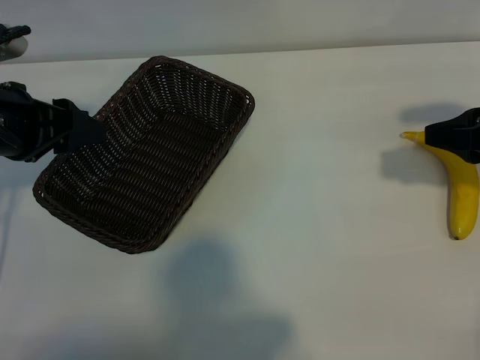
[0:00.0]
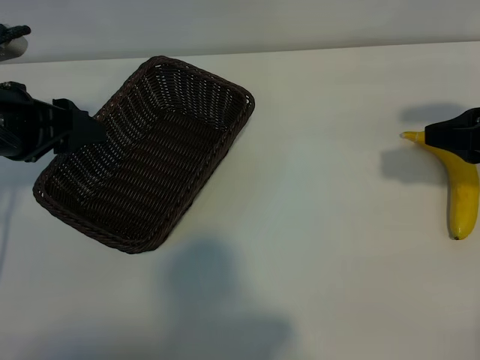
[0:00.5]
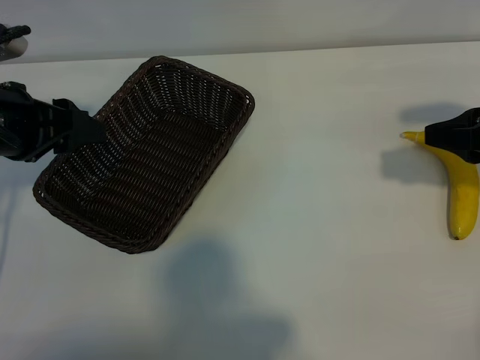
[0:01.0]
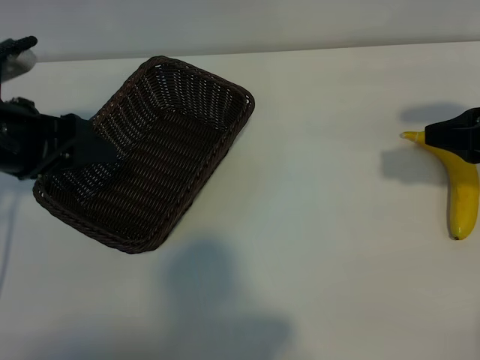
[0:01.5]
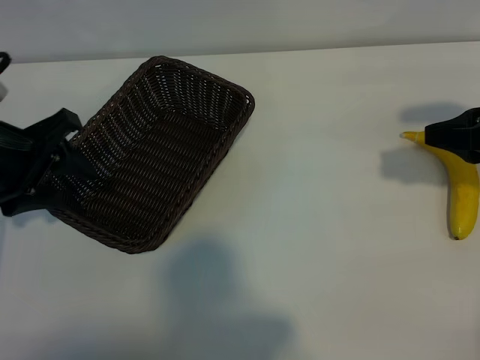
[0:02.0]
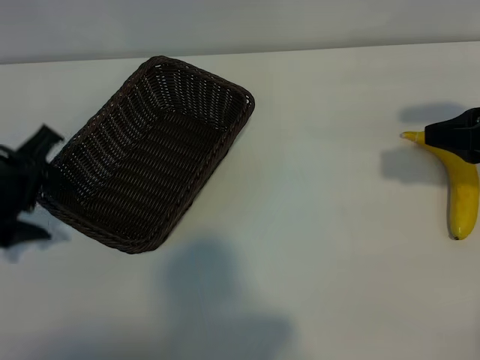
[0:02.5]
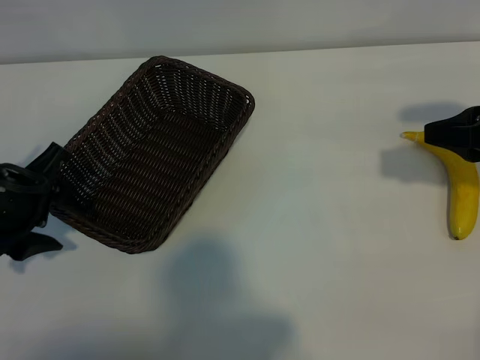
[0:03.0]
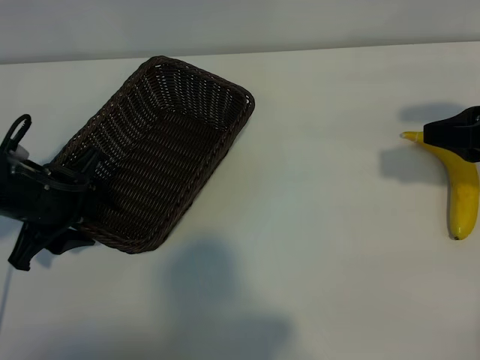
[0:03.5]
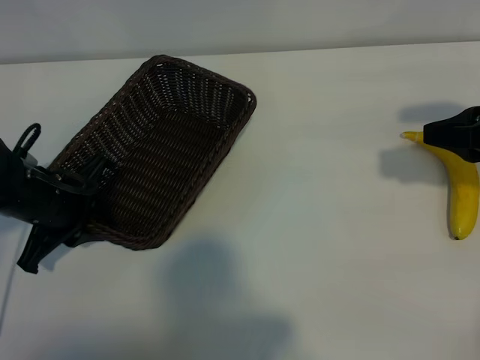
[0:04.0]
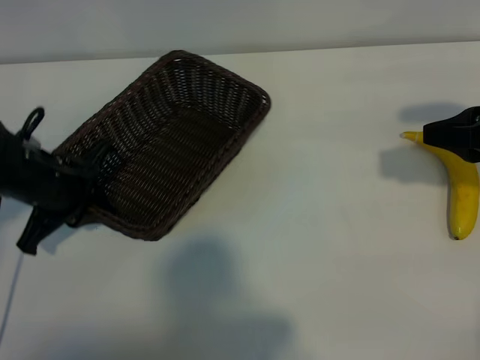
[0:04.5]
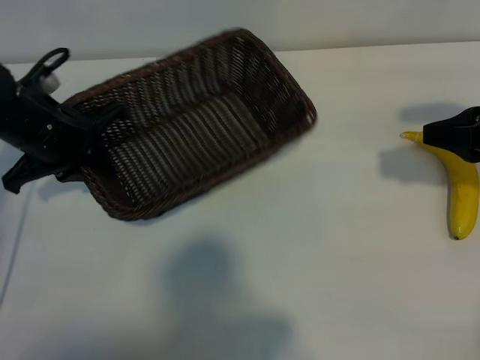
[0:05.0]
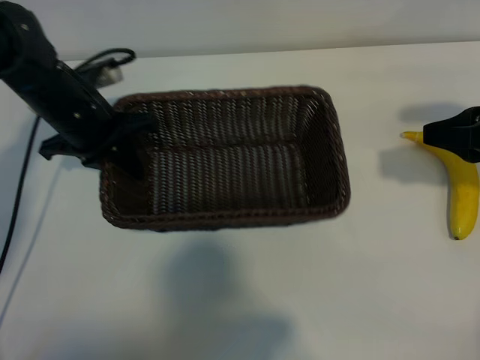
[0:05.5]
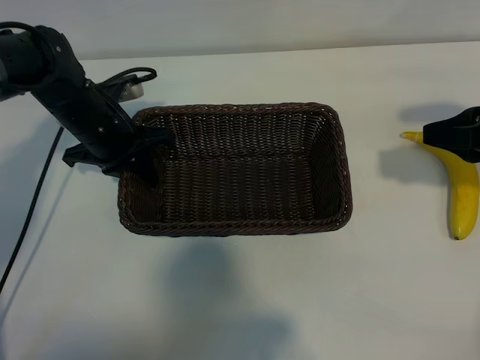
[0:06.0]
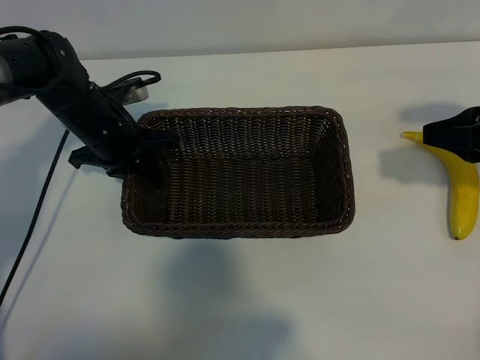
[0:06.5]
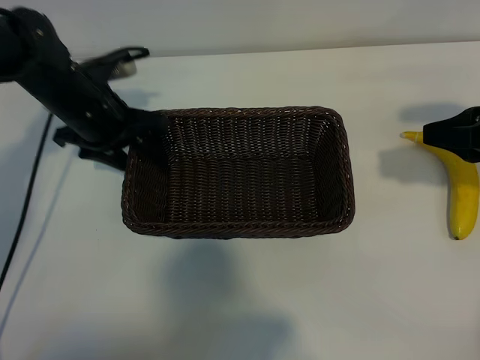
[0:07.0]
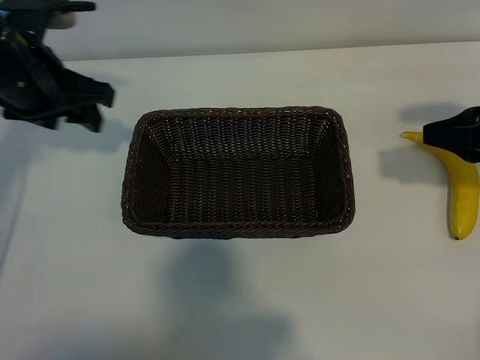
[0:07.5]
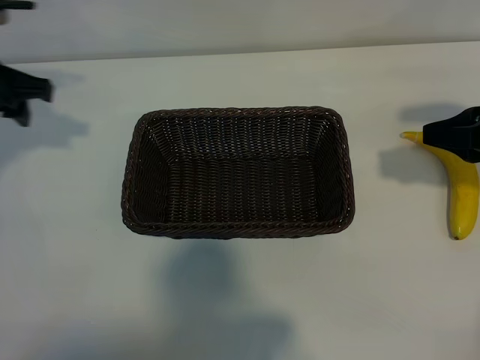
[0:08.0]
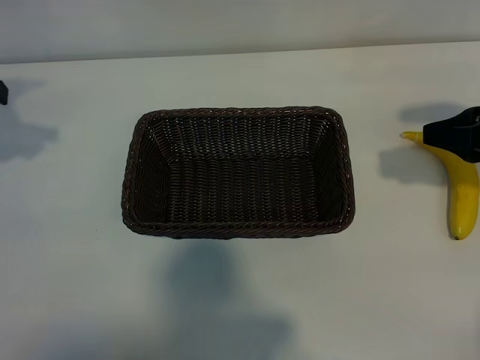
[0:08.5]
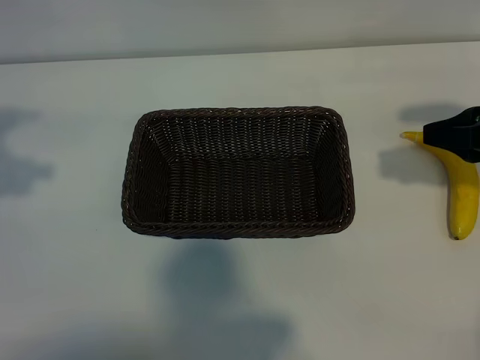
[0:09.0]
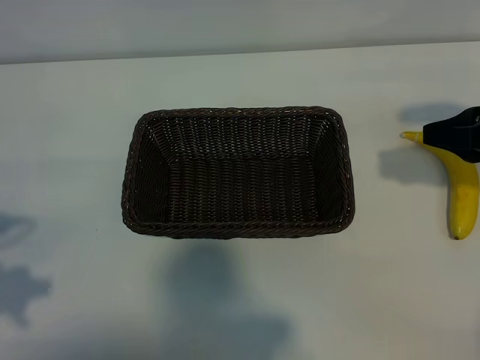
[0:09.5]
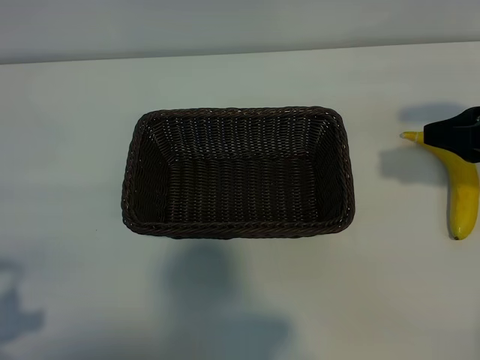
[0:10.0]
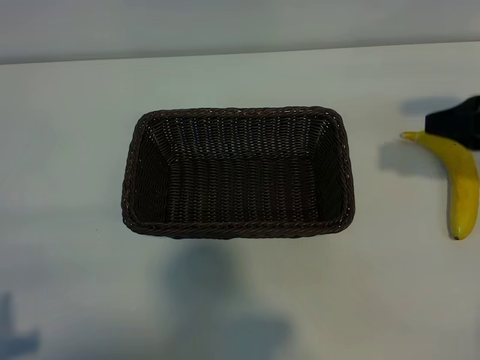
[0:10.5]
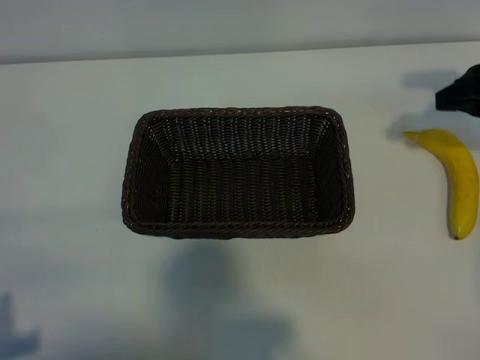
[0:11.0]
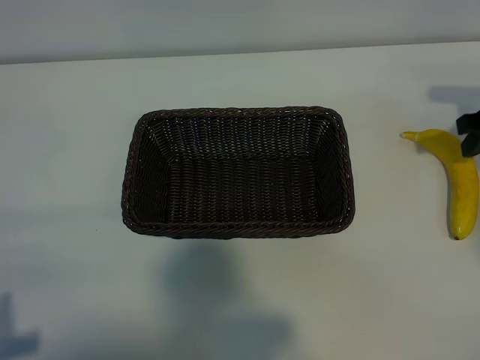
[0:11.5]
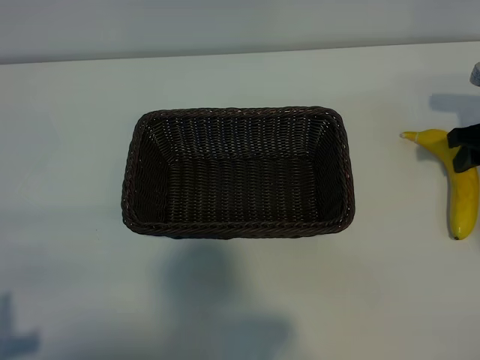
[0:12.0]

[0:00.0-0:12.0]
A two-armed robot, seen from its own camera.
Task of the whole recording: pick up the banana and put it into the basket.
Step, 0:01.5 to 0:03.5: Grasp the basket with the left gripper.
Step, 0:04.5 to 0:07.0: Place the basket in the center of the table with the left gripper.

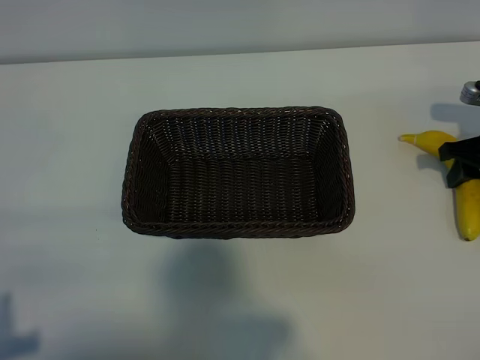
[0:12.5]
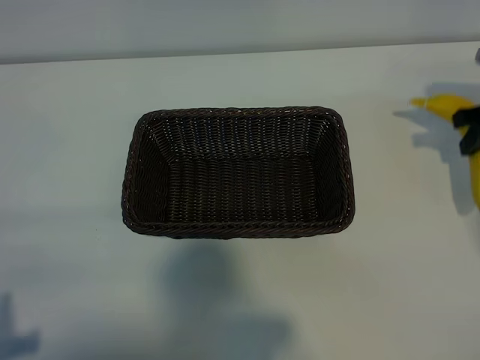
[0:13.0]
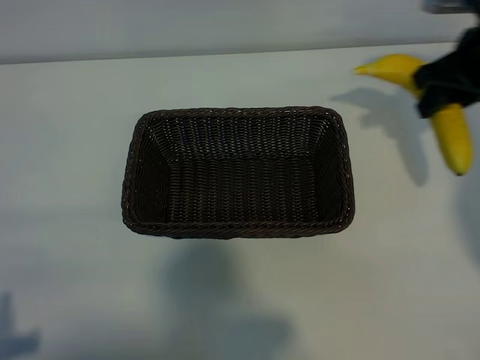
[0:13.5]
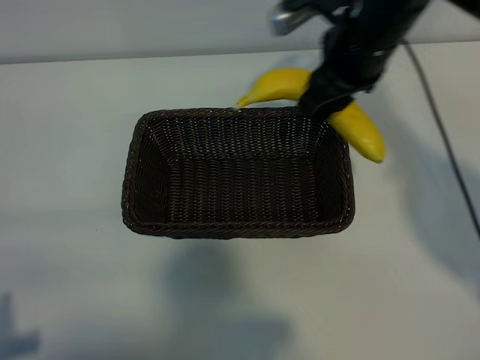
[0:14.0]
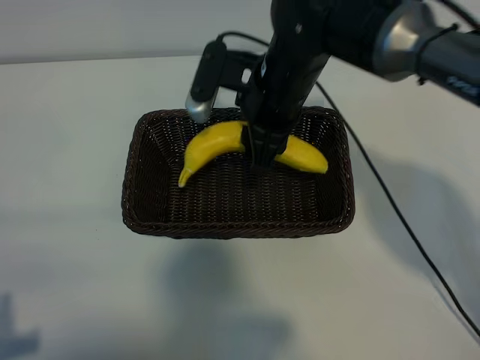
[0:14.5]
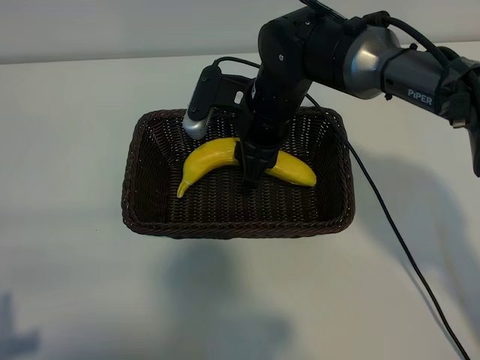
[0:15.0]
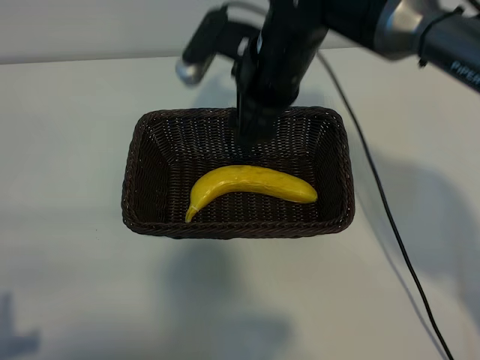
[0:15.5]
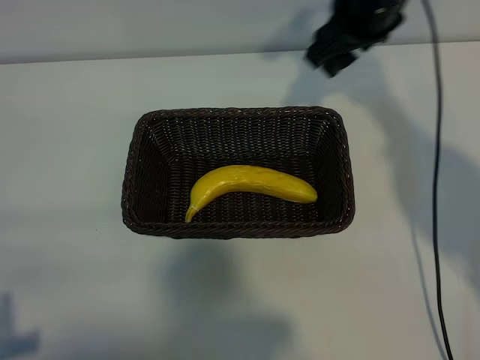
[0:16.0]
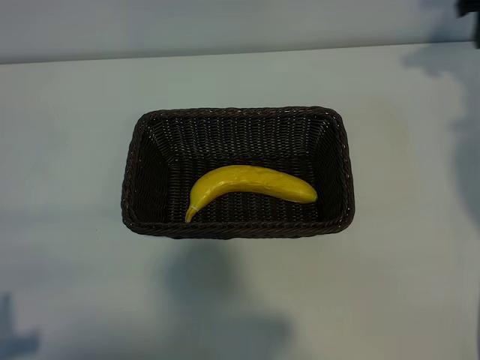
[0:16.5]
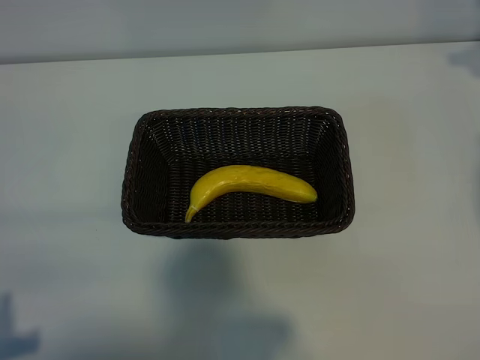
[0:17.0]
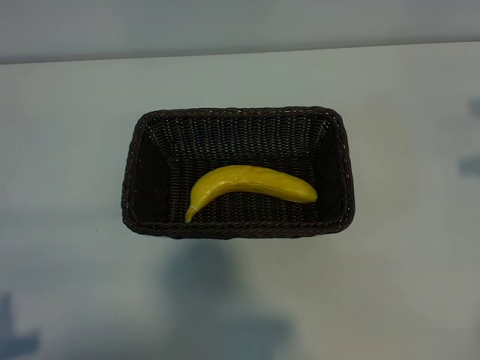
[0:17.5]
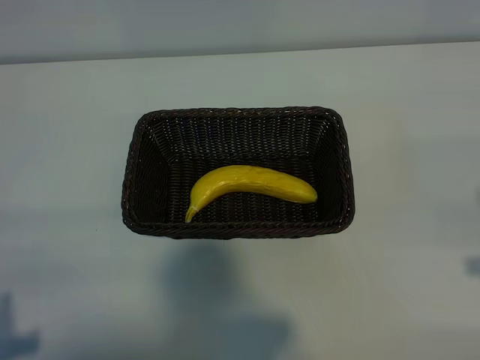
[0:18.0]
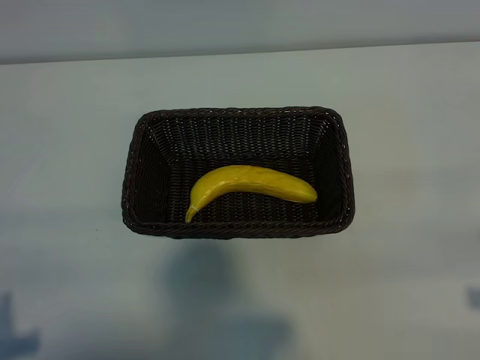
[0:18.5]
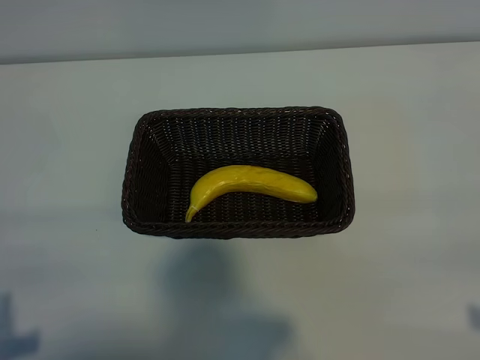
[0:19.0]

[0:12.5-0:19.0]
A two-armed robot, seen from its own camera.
Task of the whole recording: pick up the banana and put it into the basket.
Step, 0:13.0 to 0:15.0: Place the banana in the basket with right gripper.

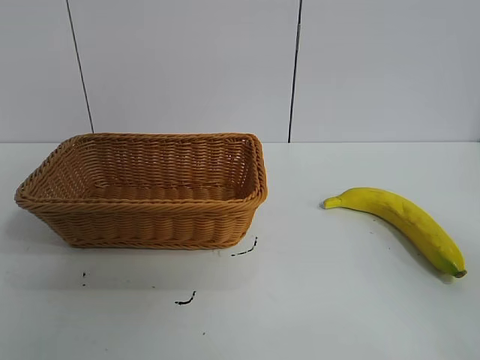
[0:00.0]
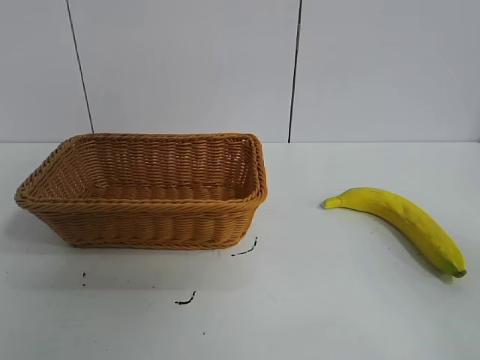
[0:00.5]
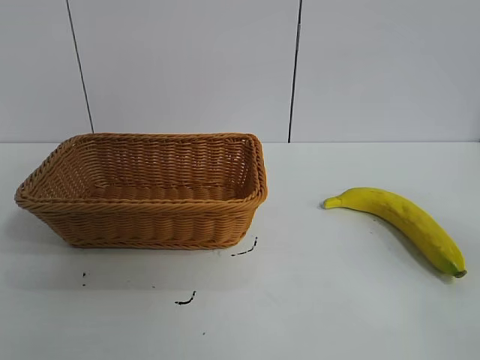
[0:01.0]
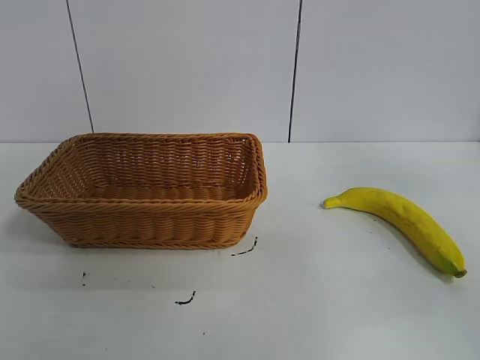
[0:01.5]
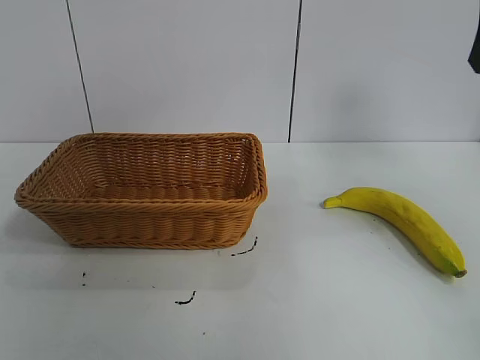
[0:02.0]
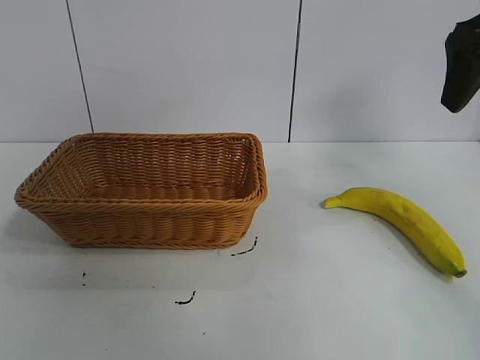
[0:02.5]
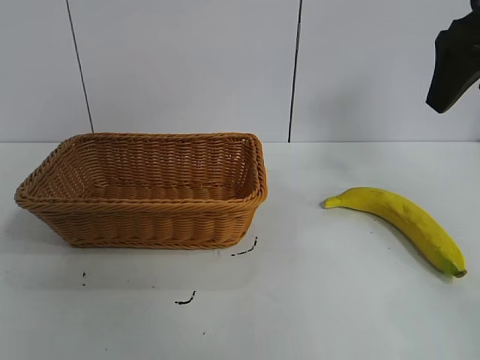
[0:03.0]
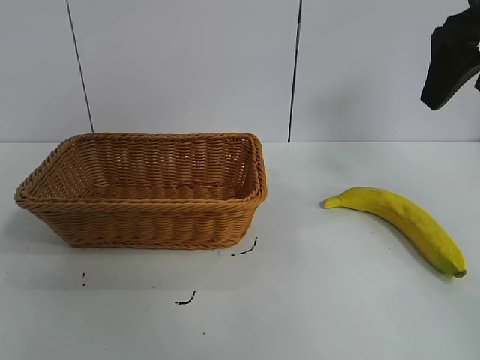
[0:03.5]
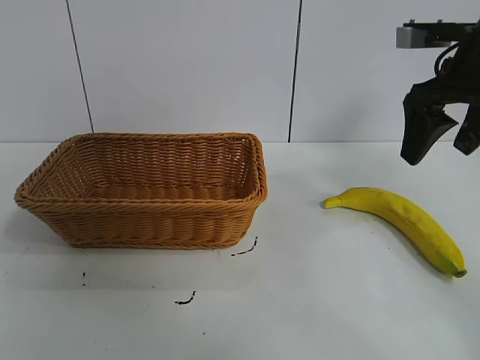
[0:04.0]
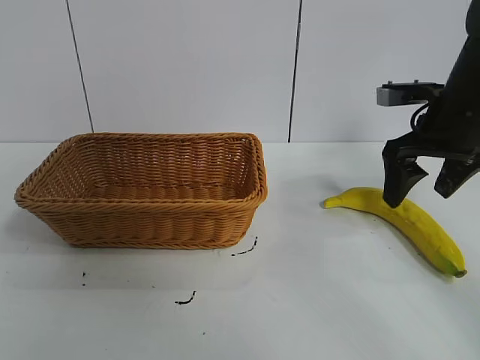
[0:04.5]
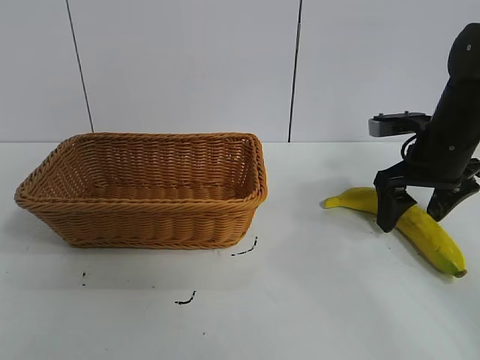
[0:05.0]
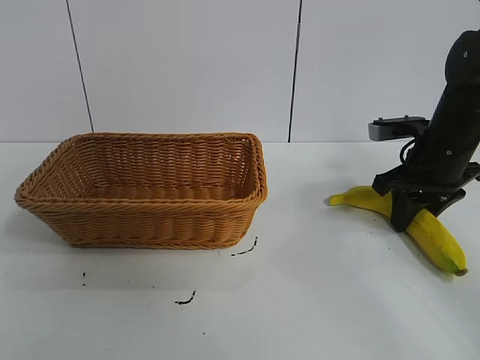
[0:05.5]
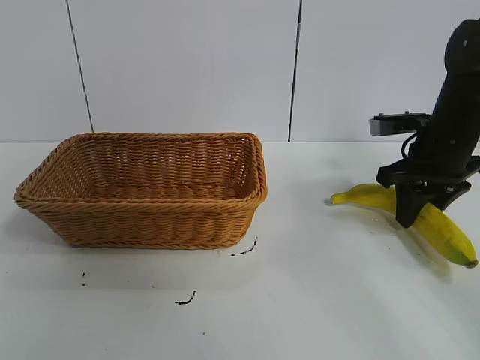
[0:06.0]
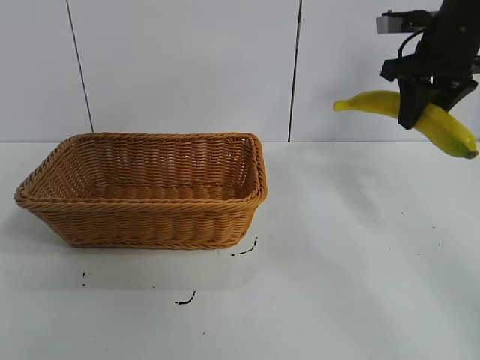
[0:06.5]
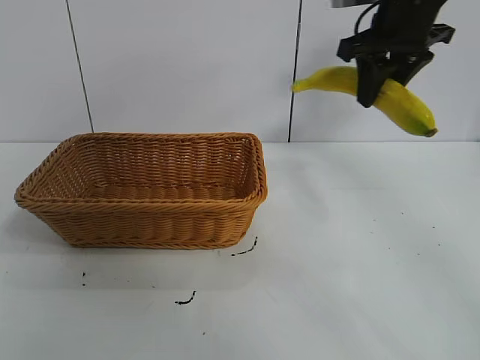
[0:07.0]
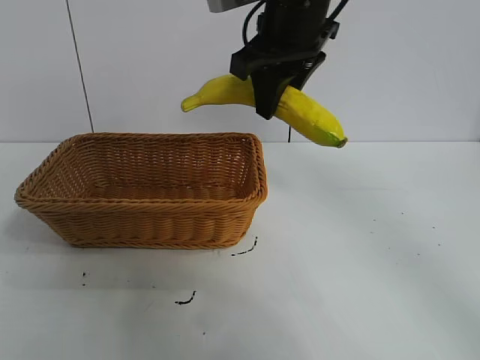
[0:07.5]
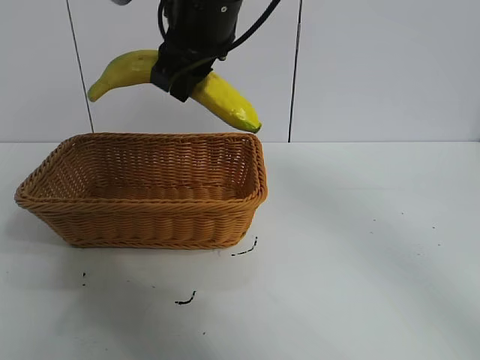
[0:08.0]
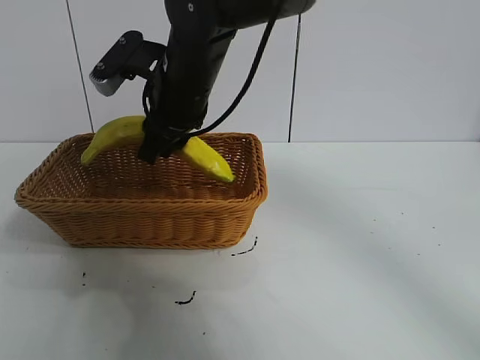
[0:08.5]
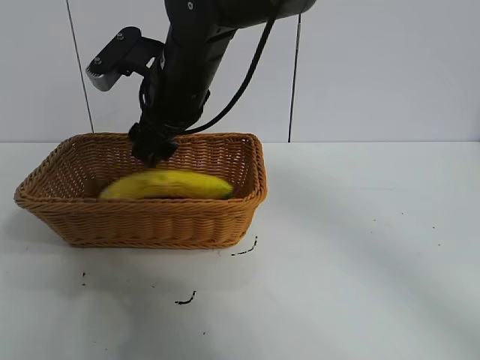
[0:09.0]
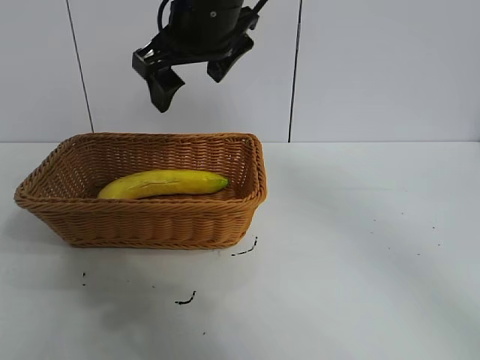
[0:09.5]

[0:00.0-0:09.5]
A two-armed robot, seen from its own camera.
Task of the whole recording: pick up the banana and put it into the basket.
Step, 0:01.0 to 0:05.5: Grasp the banana with right gripper.
Step, 0:06.0 to 0:09.0: Place the banana in the basket with right gripper.
